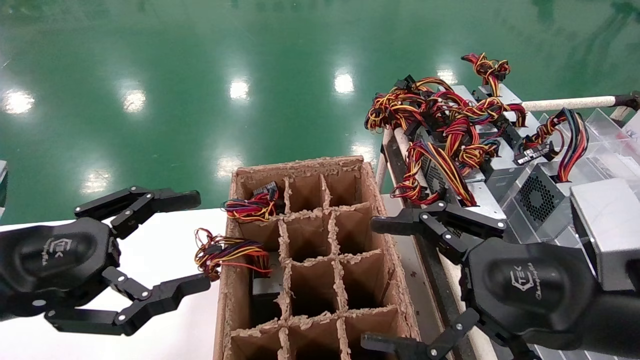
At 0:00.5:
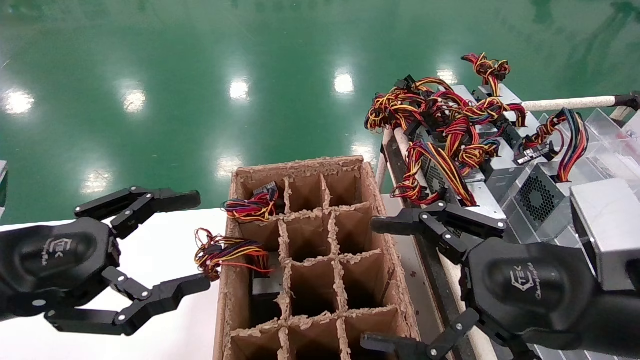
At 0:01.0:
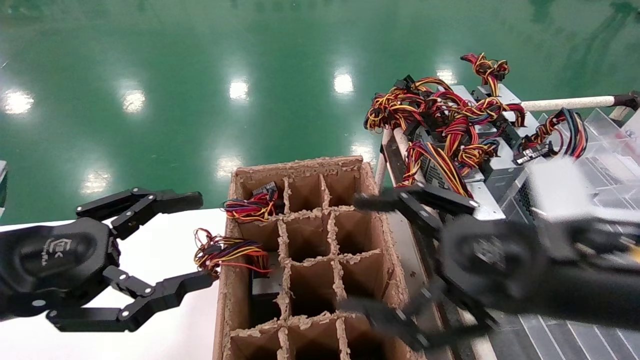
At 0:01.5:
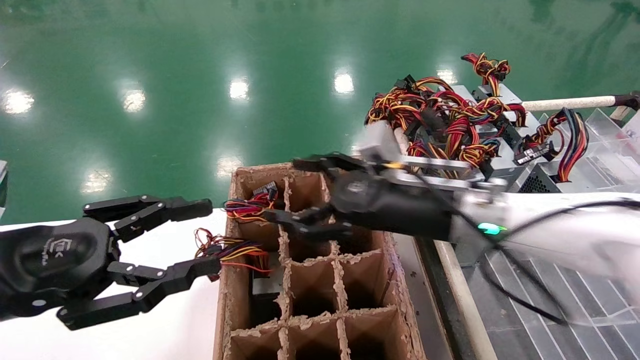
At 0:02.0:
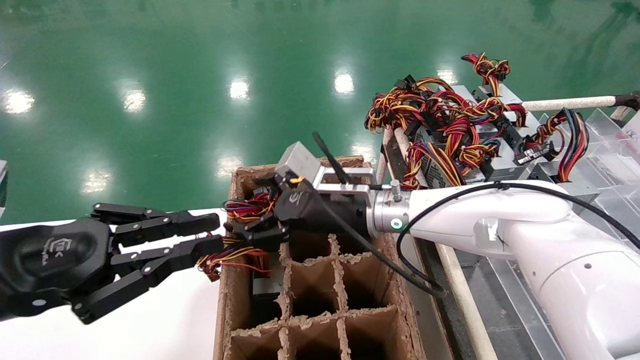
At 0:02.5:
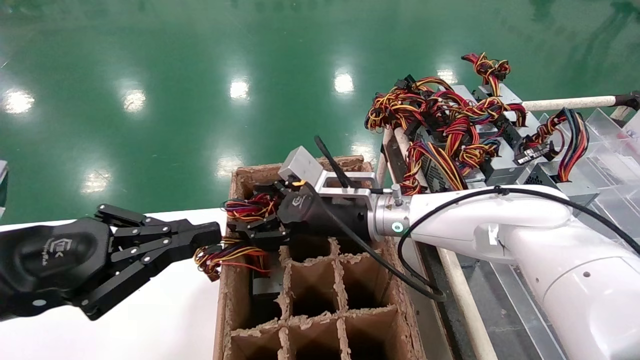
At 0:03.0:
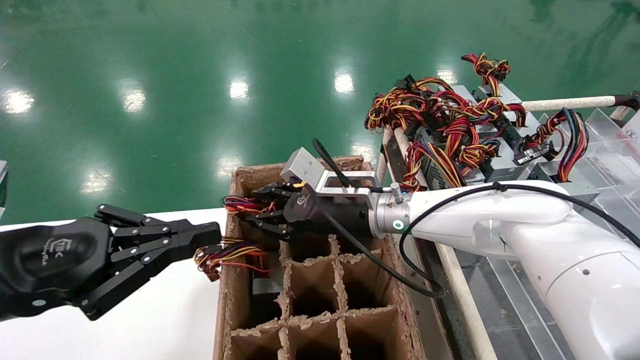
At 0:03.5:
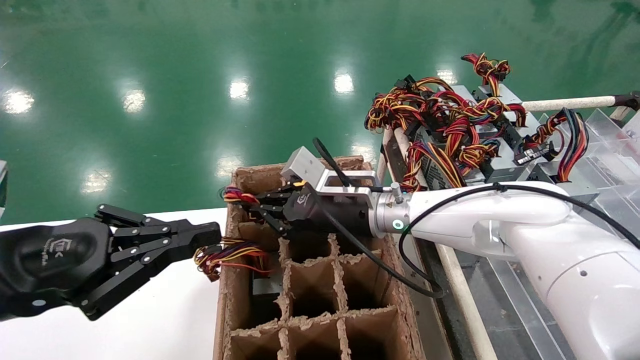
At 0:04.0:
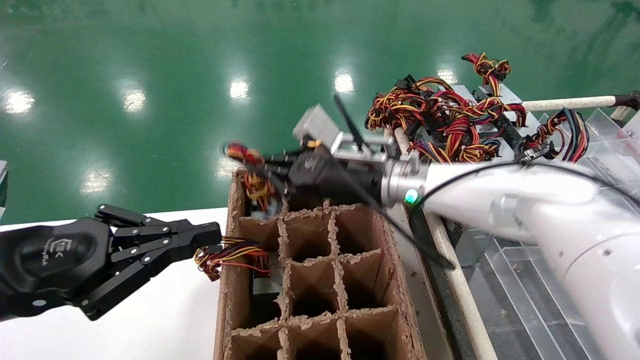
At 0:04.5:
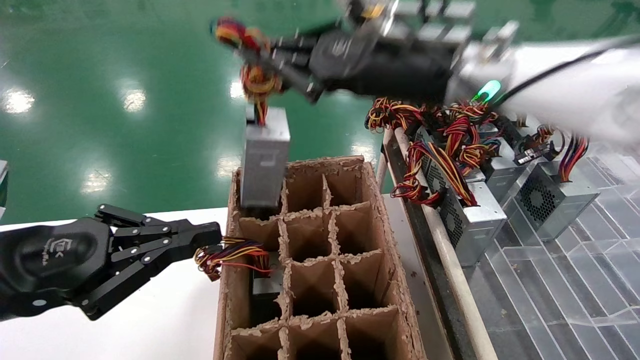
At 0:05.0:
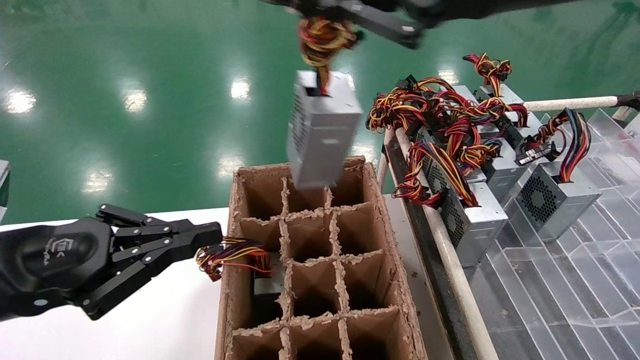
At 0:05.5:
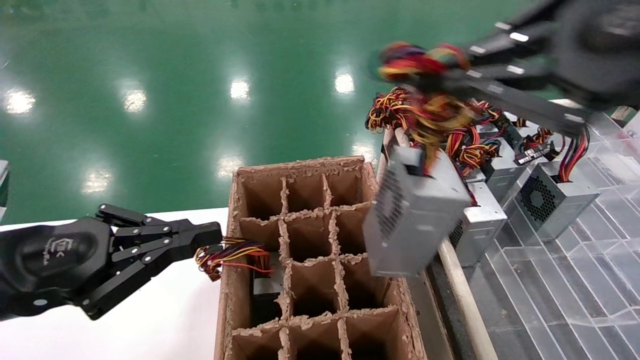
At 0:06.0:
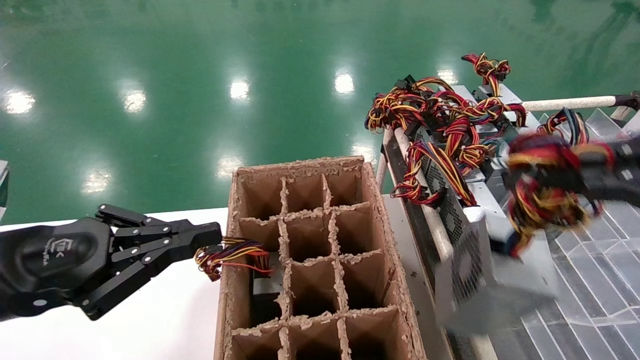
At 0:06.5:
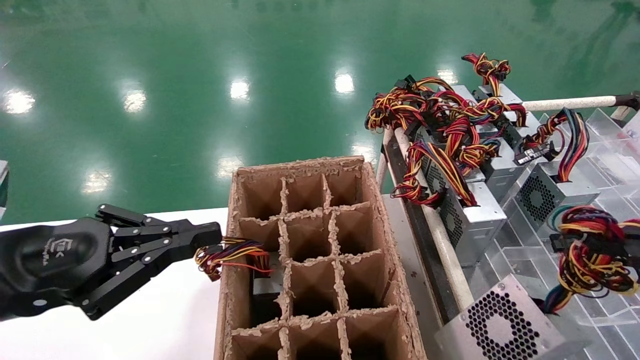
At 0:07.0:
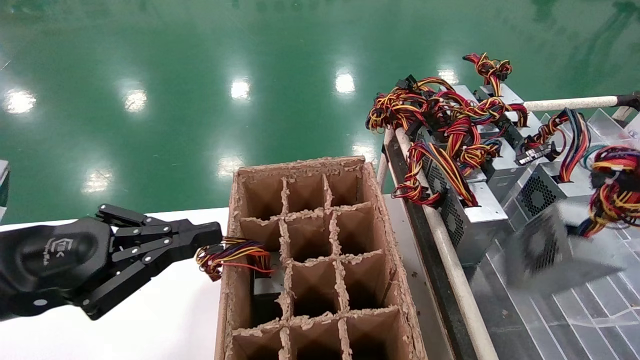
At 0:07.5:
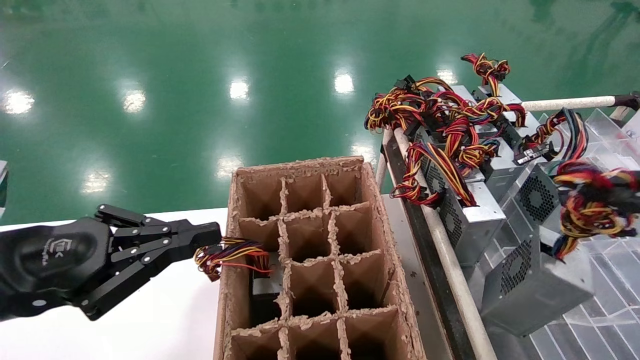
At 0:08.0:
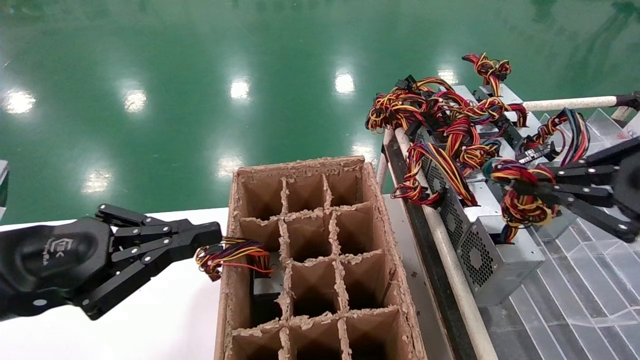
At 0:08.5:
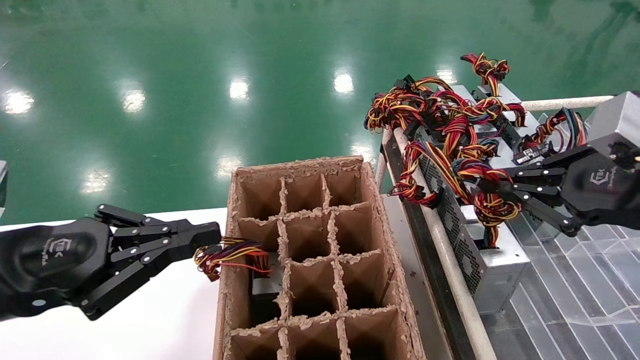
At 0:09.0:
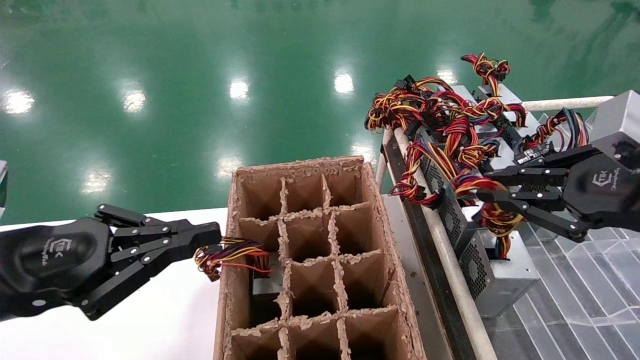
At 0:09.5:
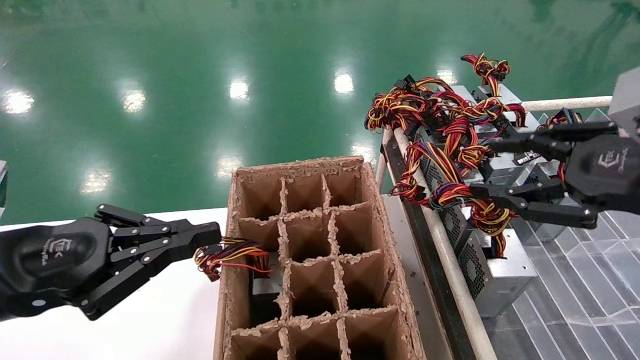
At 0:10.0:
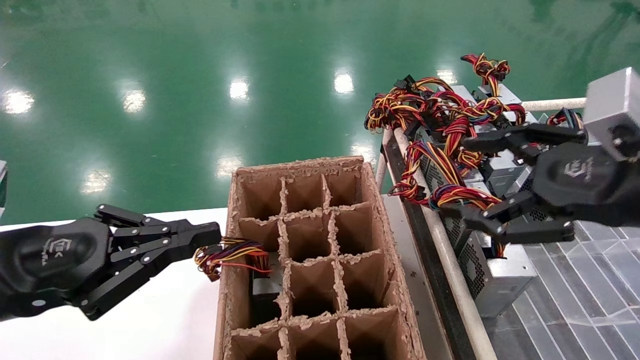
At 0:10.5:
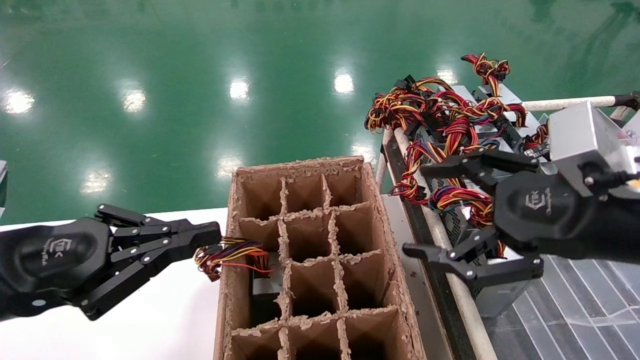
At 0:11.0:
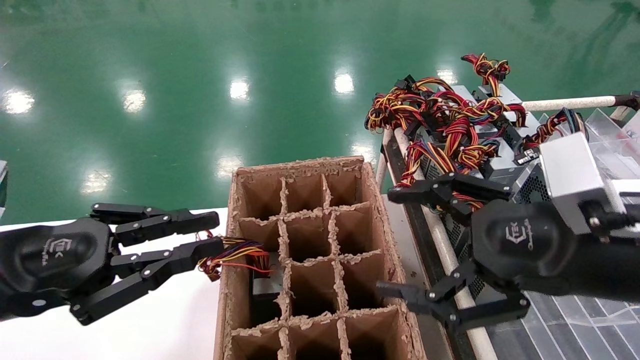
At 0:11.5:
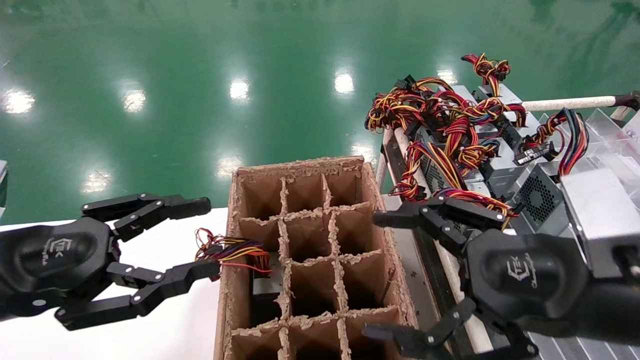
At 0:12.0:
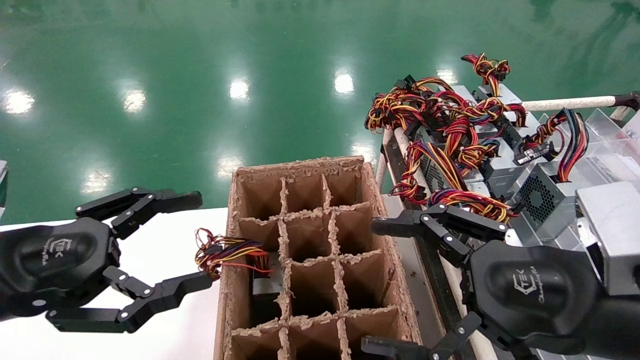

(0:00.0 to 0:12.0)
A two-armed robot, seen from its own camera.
Step, 0:01.5 - 0:03.0: Grab the main unit power supply from the containment box.
Step, 0:03.5 - 0:09.0: Place the main unit power supply in the designated area.
0:00.0 - 0:02.0: The right gripper shifts roughly 30 cm forward and to the left. Meanwhile the left gripper closes.
0:02.0 - 0:04.0: The right gripper shifts about 5 cm upward, and closes its fingers.
0:04.0 - 0:06.0: The right gripper heads backward and to the right, covering roughly 40 cm.
0:06.0 - 0:08.0: The right gripper moves forward, about 10 cm.
0:08.0 - 0:10.0: The right gripper goes approximately 5 cm to the left, and opens.
0:10.0 - 0:12.0: The right gripper heads downward and to the left, covering approximately 10 cm. Meanwhile the left gripper opens.

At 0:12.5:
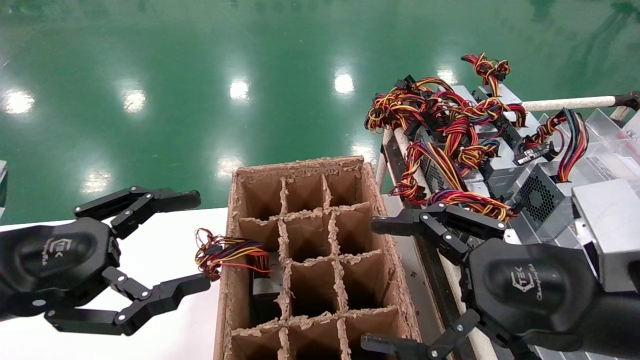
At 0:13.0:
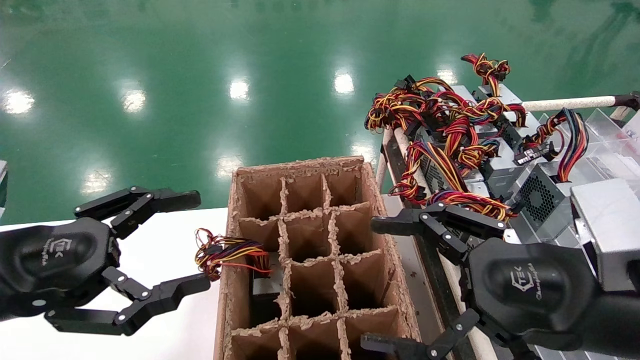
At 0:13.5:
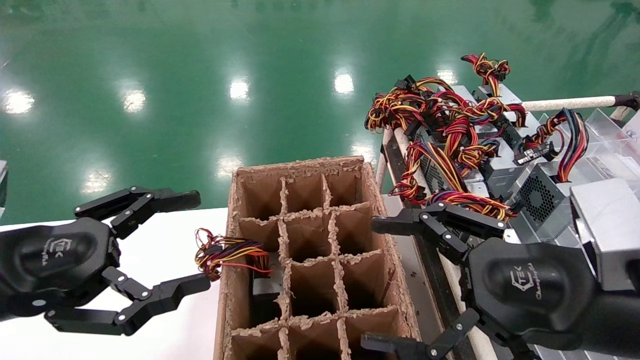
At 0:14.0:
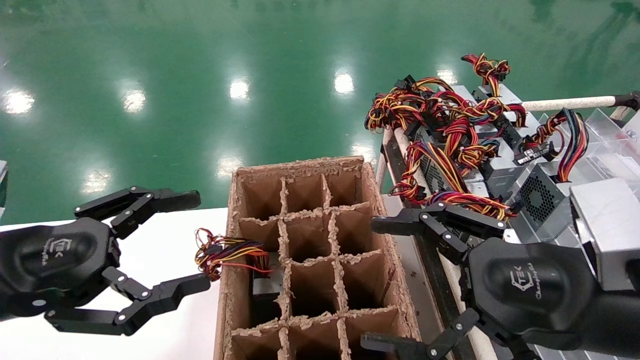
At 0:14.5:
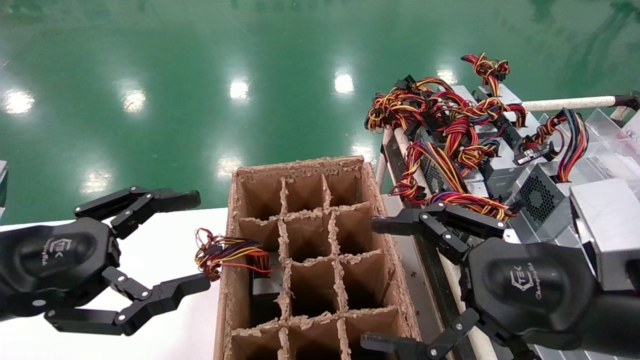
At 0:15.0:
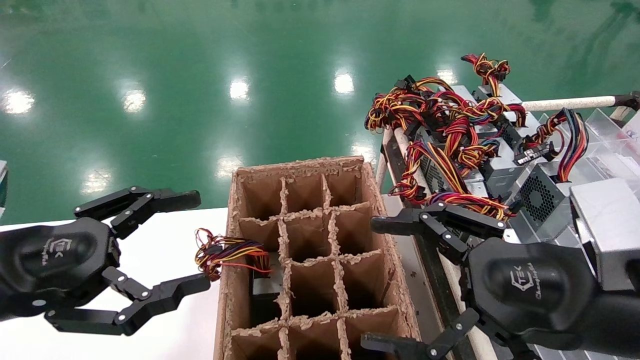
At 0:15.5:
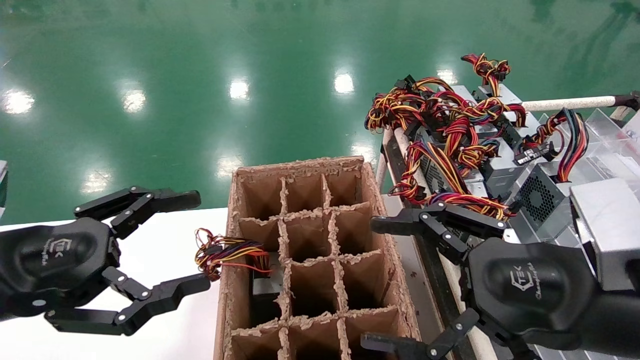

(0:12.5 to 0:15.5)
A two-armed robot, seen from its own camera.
0:12.5 - 0:15.5: Both grippers stay put.

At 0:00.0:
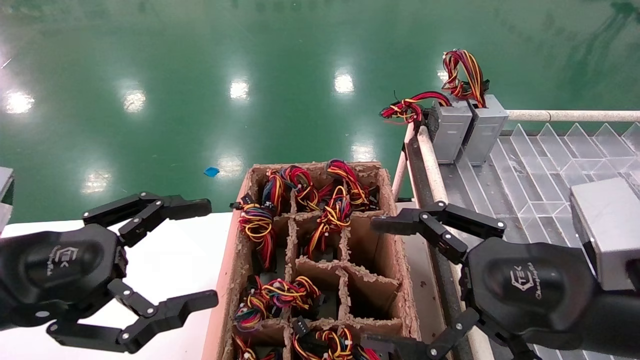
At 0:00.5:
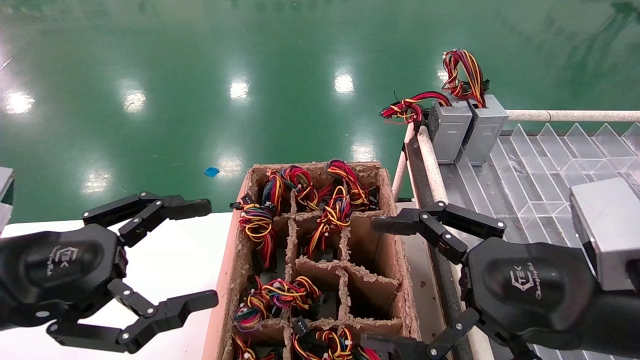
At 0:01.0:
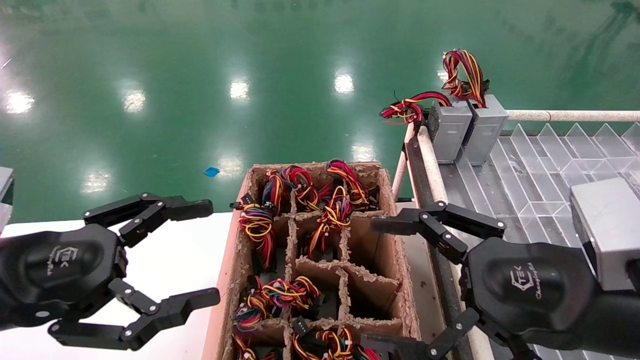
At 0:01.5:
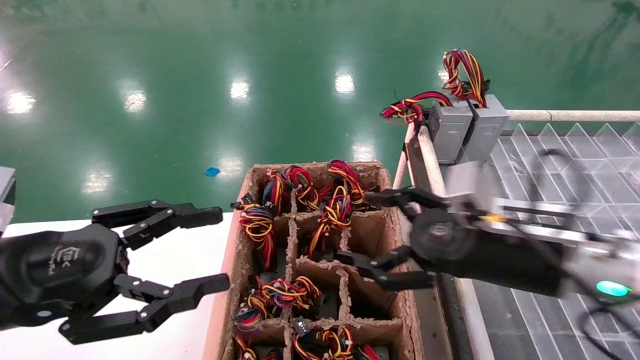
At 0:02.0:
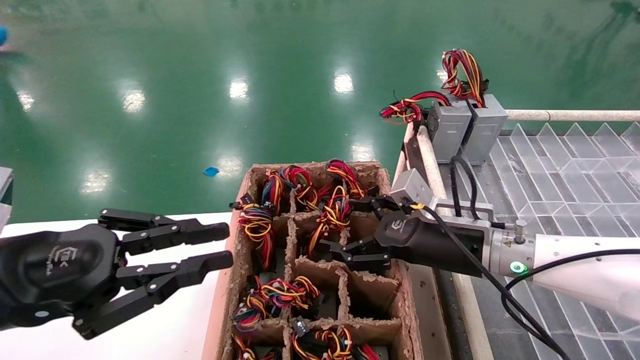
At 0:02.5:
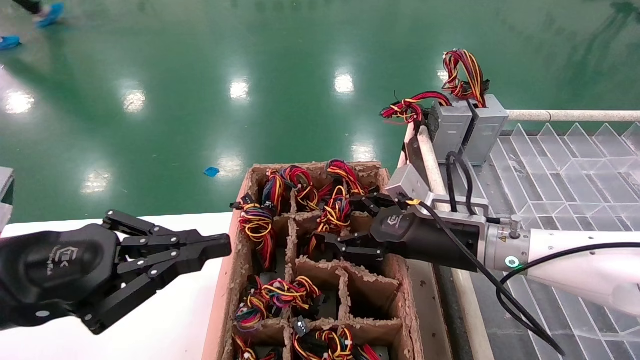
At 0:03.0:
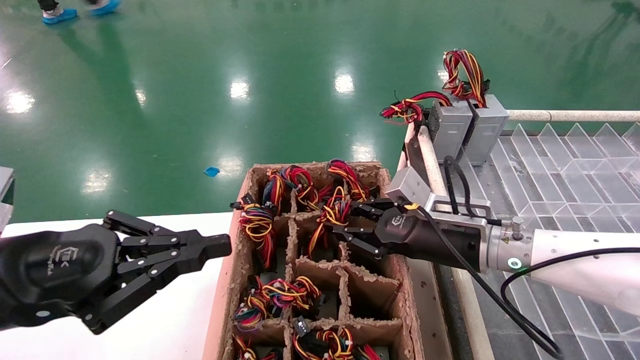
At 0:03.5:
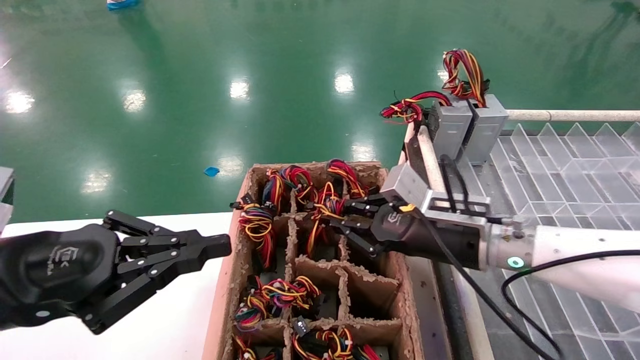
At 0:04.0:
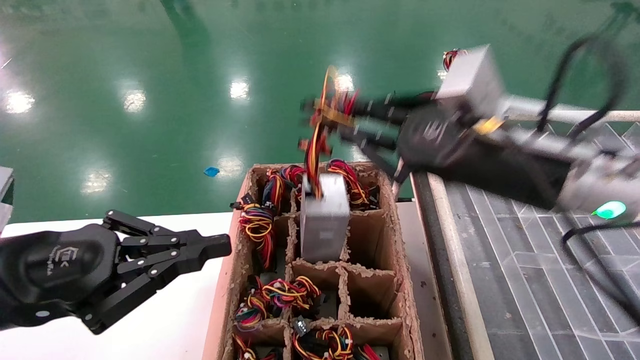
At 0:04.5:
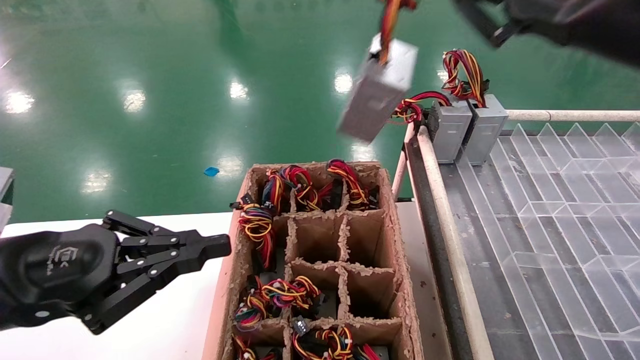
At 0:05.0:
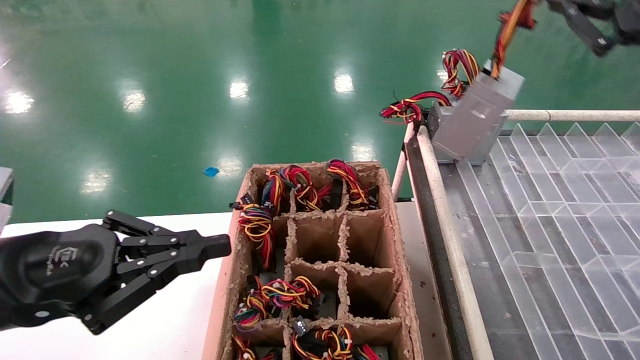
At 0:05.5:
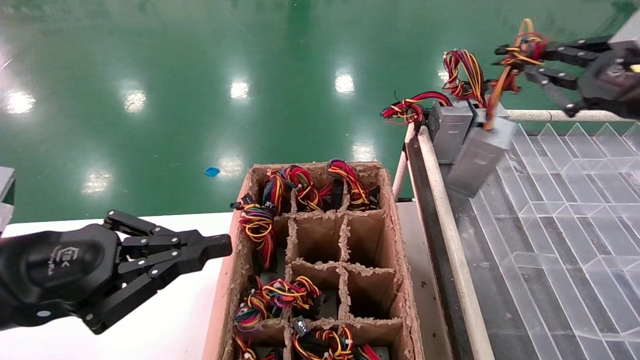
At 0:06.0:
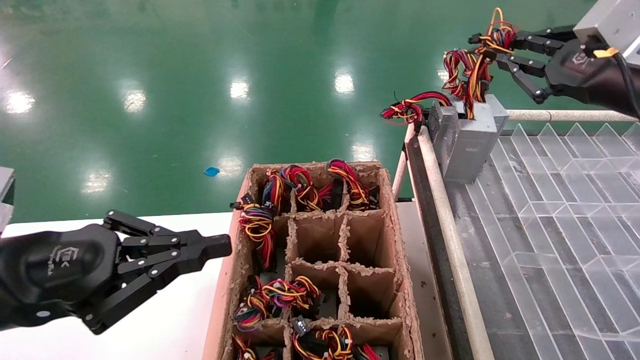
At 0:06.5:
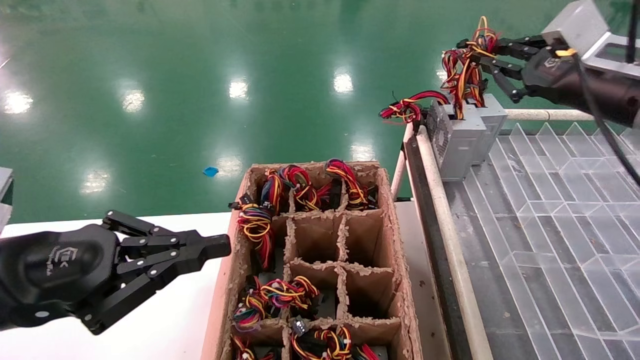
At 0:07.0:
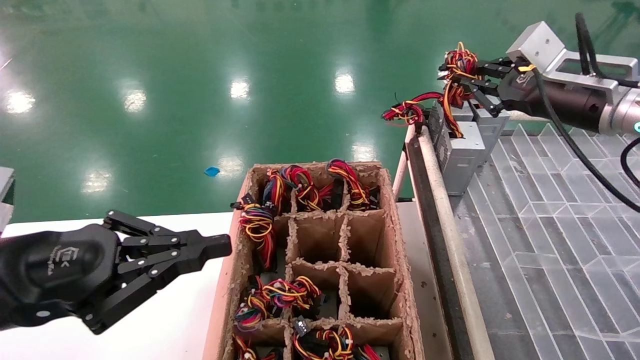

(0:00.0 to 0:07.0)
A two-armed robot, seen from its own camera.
Step, 0:01.5 - 0:03.0: Grab the main unit power supply from the containment box.
0:00.0 - 0:02.0: The left gripper closes, while the right gripper goes some 15 cm forward.
0:02.0 - 0:03.5: The right gripper closes its fingers.
0:03.5 - 0:05.0: The right gripper moves upward, to the right and backward, about 25 cm.
0:05.0 - 0:07.0: The right gripper shifts some 15 cm forward.
